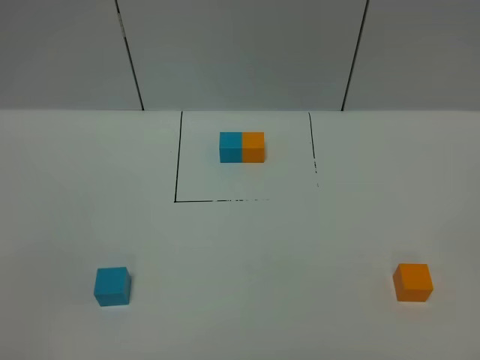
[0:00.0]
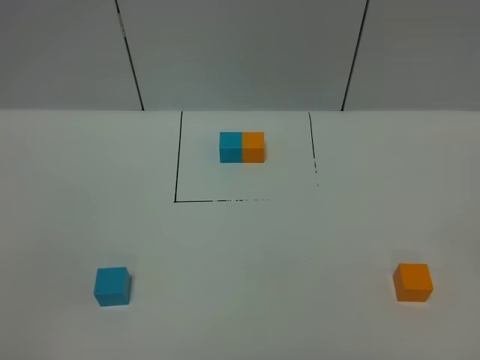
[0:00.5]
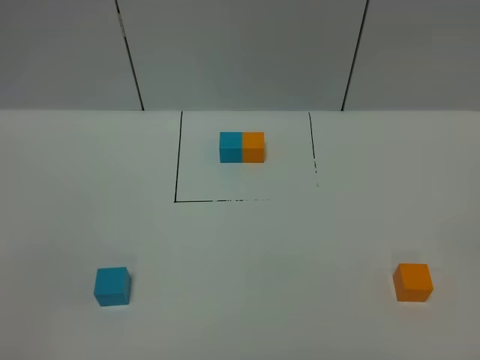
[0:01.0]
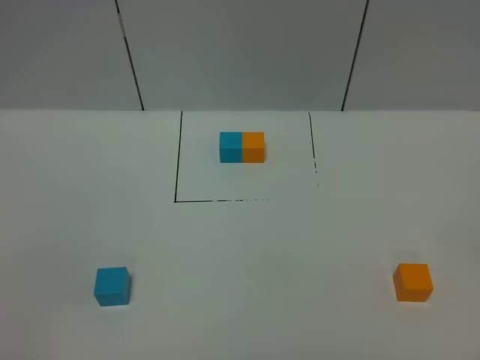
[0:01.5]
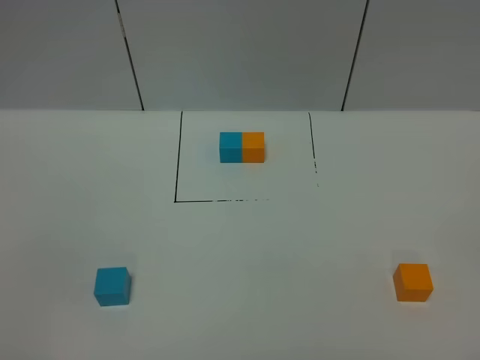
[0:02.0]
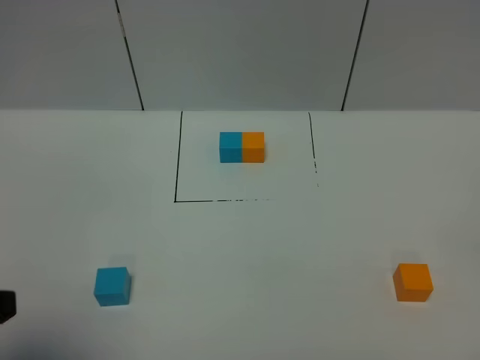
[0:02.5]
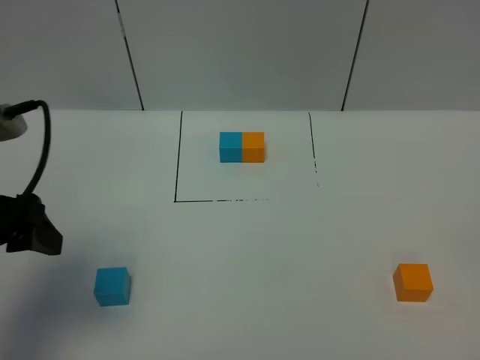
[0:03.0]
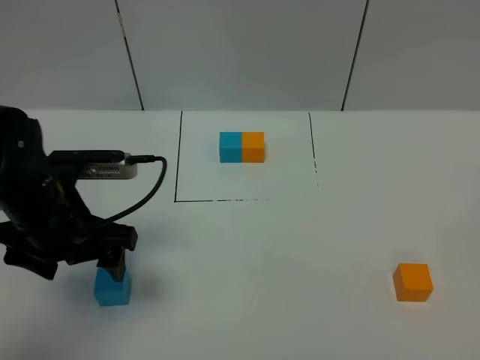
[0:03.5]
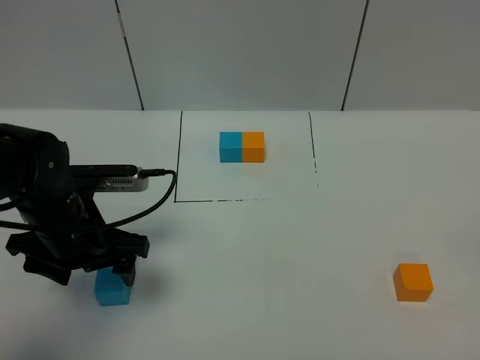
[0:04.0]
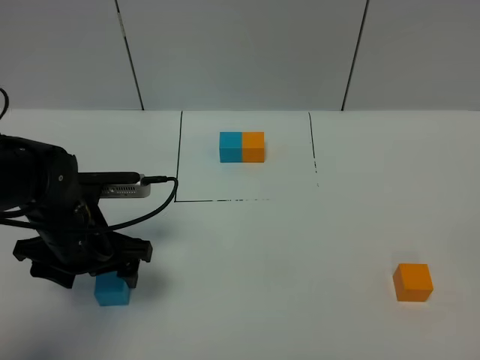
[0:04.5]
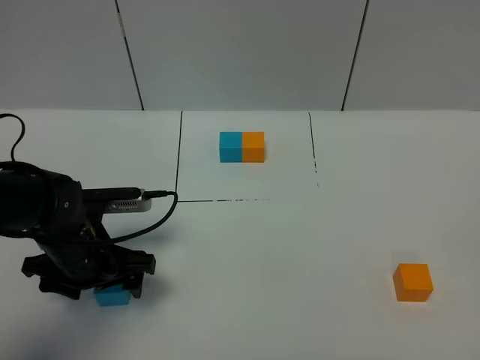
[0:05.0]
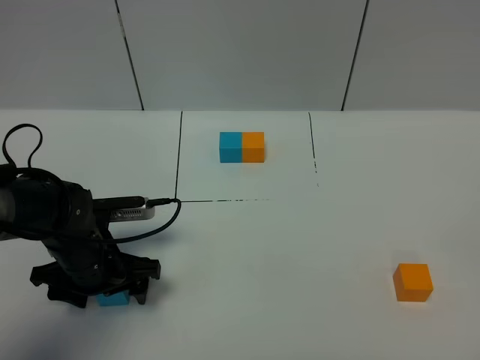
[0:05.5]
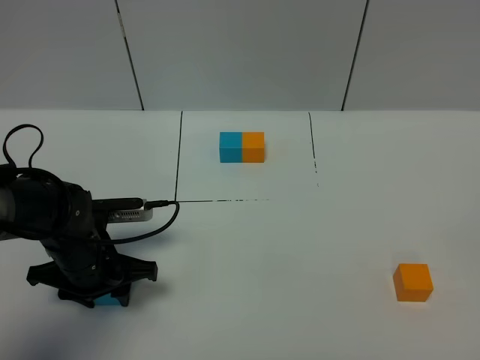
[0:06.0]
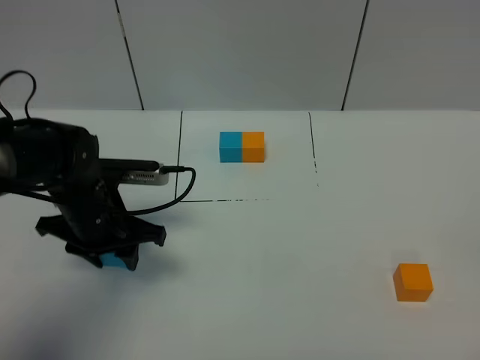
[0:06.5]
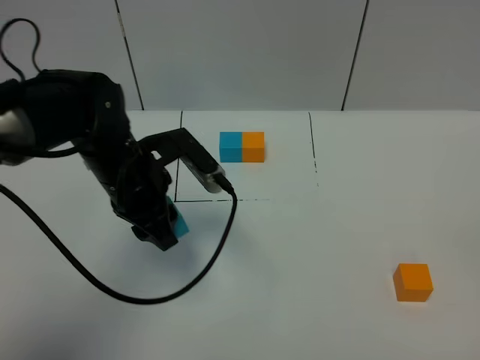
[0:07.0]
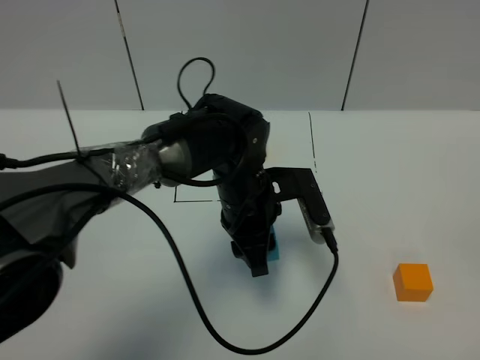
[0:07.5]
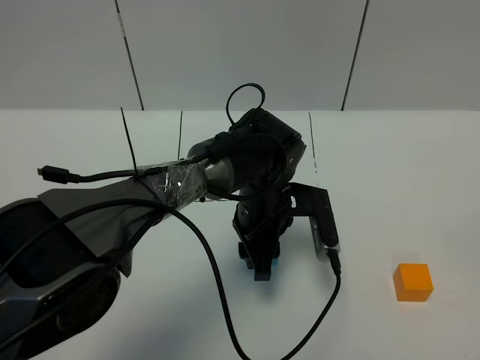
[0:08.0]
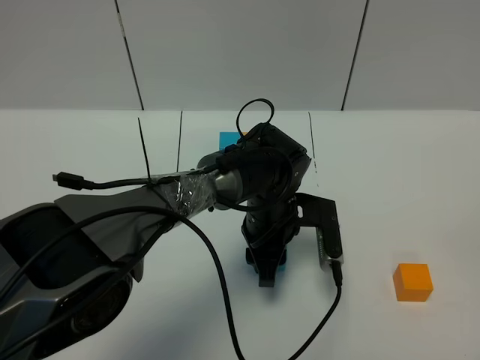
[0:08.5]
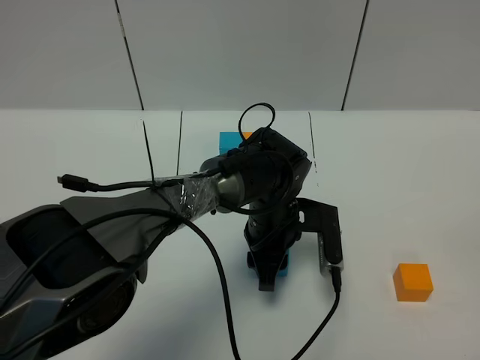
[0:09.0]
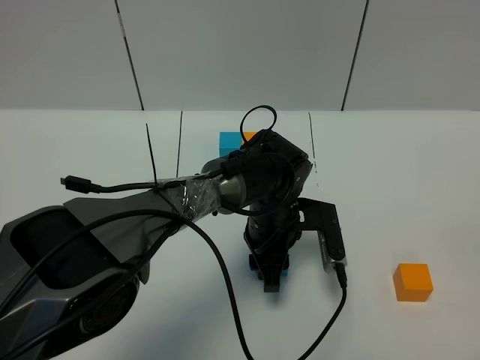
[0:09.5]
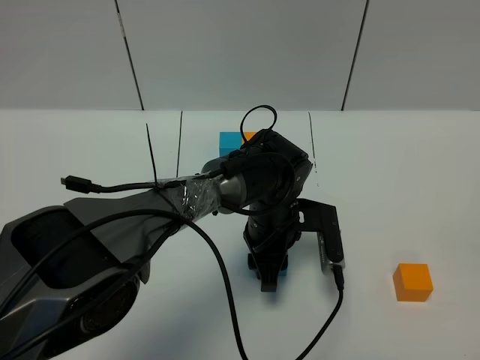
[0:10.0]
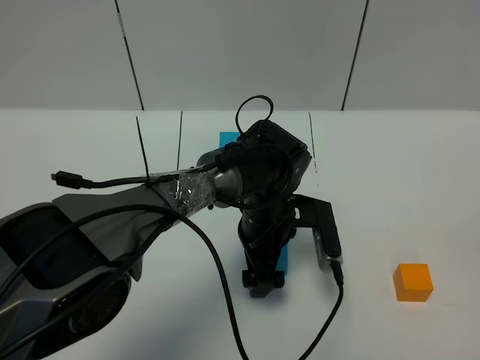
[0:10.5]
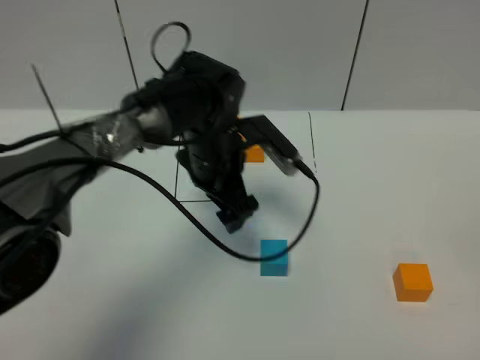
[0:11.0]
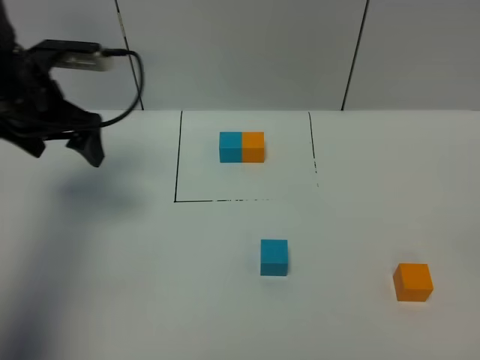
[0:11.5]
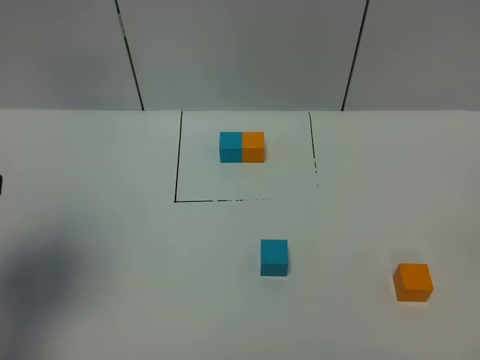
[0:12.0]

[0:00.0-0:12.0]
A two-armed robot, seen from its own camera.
Task of the whole recording: According to the building block template in front, assemble the scattered blocks together.
Step, 0:02.5 to 0:10.5: Put the blue cube in the center of the table.
0:00.0 to 0:02.0: Both grippers stay about where they are.
0:02.0 to 0:04.0: The left gripper is displaced forward by some 30 cm.
0:04.0 to 0:06.0: The left gripper heads downward, covering about 5 cm, and closes.
0:06.0 to 0:08.0: The left gripper moves to the right, some 20 cm.
0:08.0 to 0:10.0: The grippers move only a little.
0:10.0 to 0:12.0: The left gripper goes approximately 40 cm to the left and upward, and opens up.

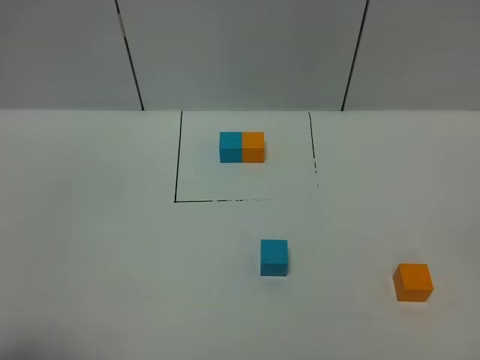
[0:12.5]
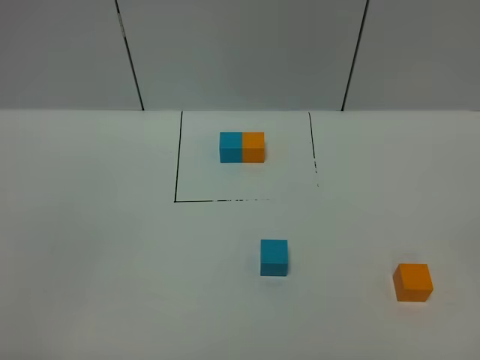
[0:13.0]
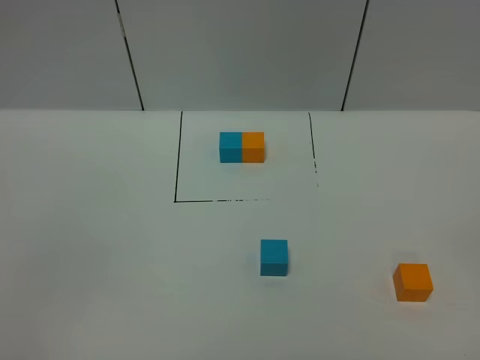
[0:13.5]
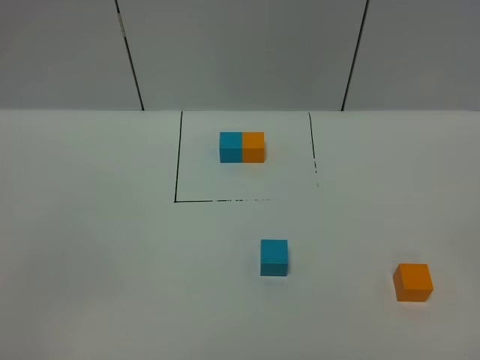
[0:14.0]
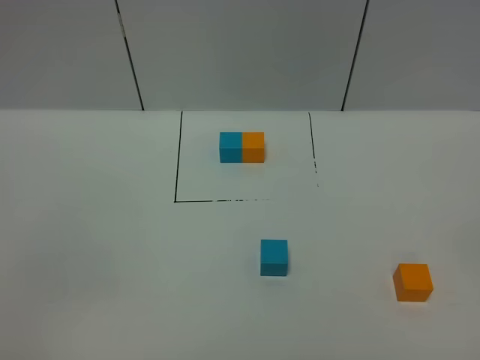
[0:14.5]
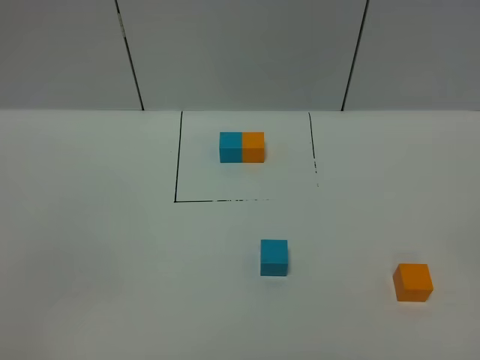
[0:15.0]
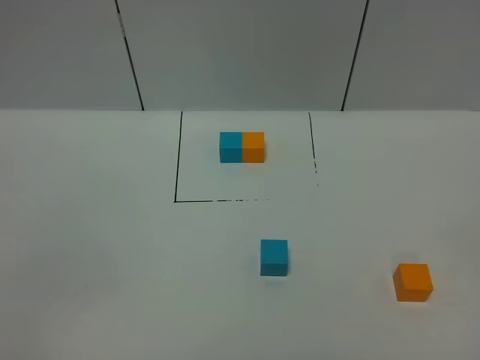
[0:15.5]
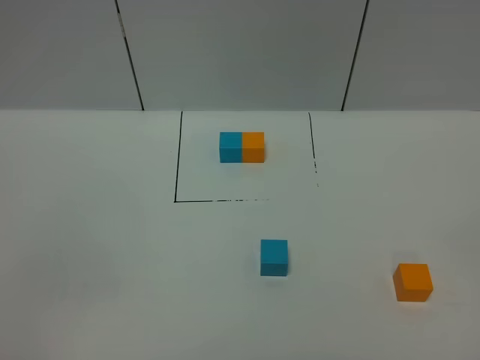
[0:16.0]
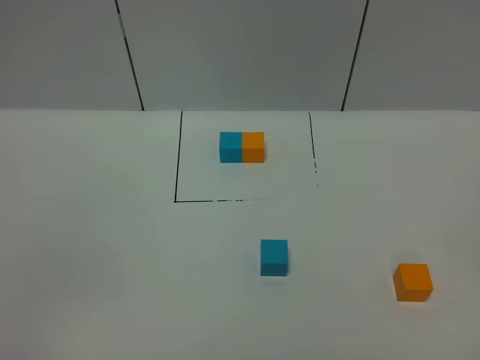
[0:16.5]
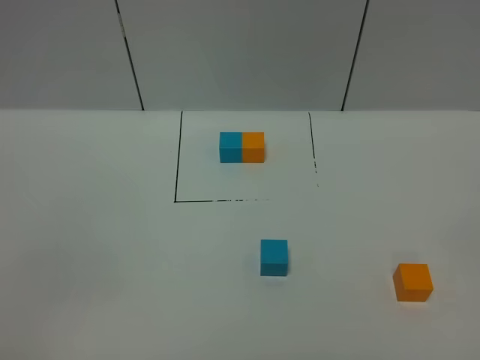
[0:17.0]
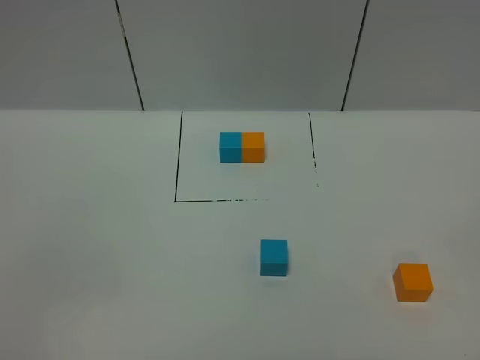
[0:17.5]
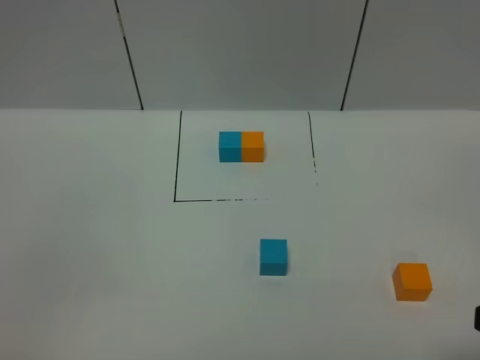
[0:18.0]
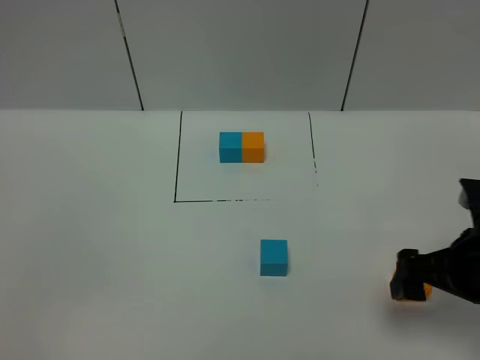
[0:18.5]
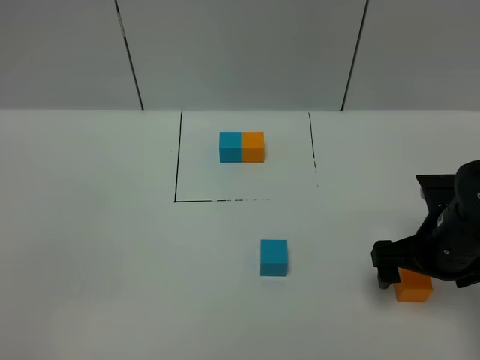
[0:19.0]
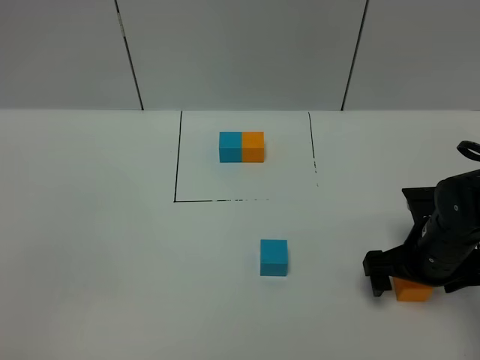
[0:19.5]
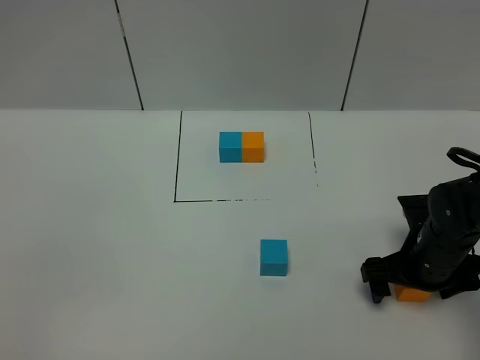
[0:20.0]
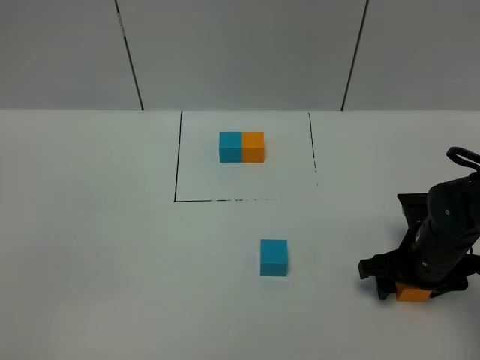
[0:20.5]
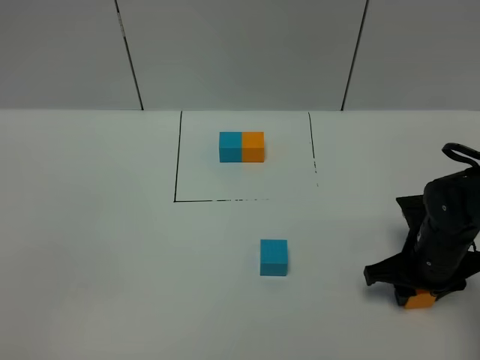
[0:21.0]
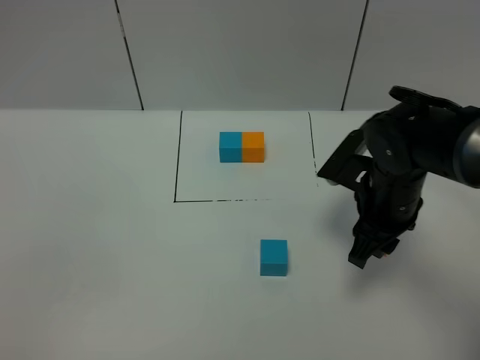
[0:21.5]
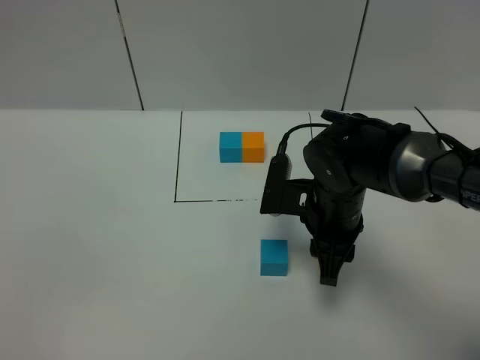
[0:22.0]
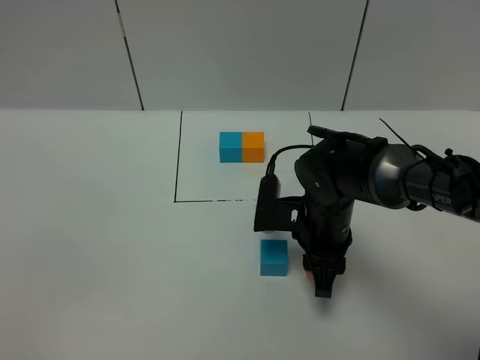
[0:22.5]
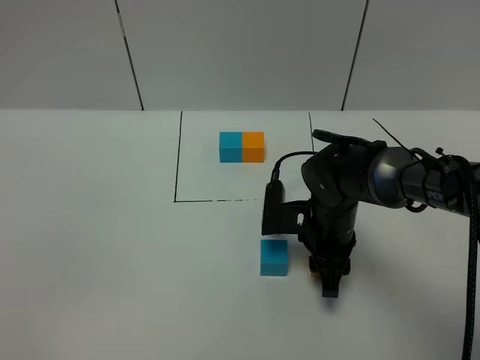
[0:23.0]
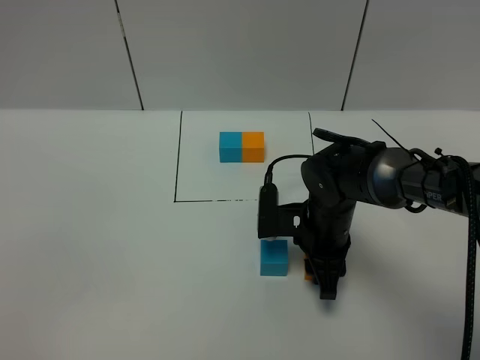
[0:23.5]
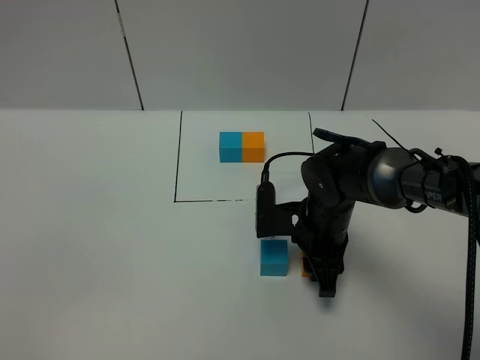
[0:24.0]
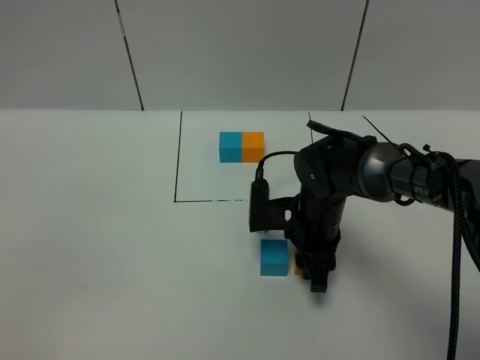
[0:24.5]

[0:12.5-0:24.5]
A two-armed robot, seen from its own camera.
Task of the whole recording: According to the building block template in front, assemble the scattered blocks together.
0:14.5 to 0:16.5: Neither gripper changes place.
0:16.5 to 0:18.5: The right gripper shifts about 25 cm forward.
0:18.5 to 0:20.5: The right gripper goes about 10 cm downward and forward, and closes its fingers.
0:20.5 to 0:22.5: The right gripper is displaced to the left by approximately 15 cm, and closes up.
0:22.5 to 0:24.5: The grippers make only small movements.

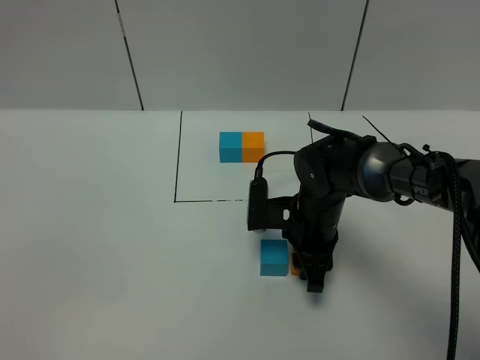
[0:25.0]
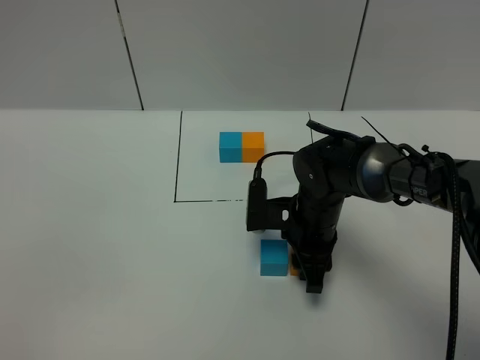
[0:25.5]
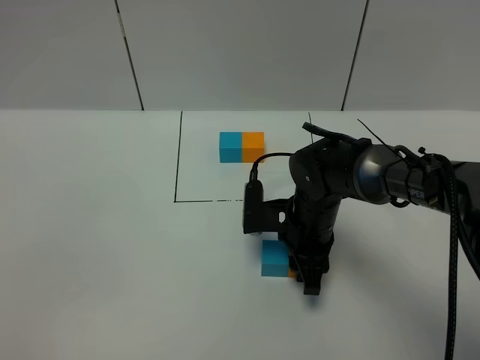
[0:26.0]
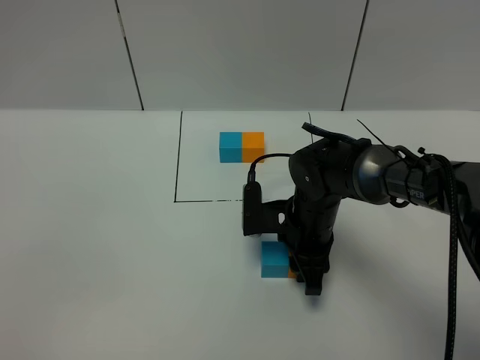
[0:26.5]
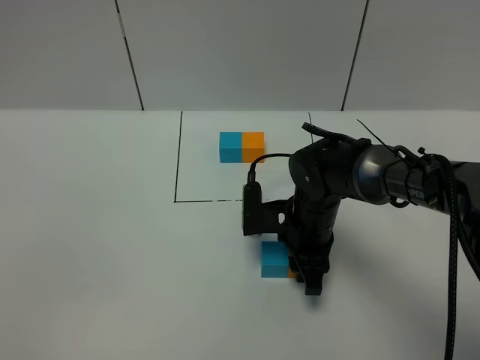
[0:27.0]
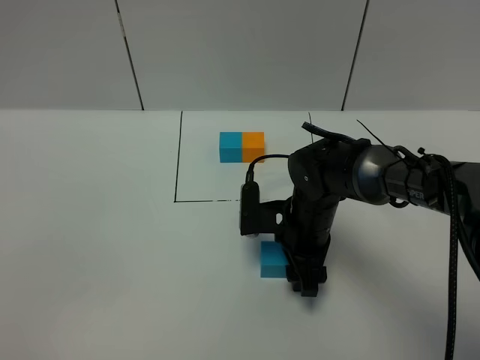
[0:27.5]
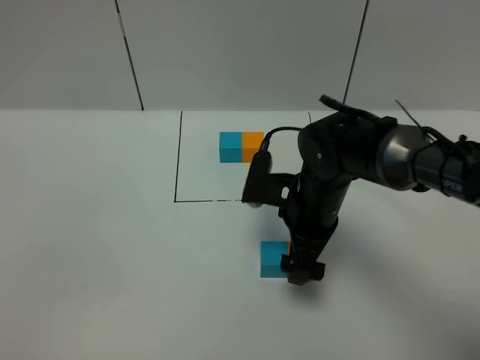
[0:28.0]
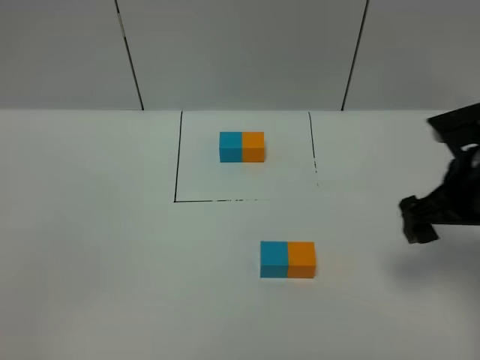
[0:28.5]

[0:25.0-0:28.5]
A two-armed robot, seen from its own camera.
Task of the whole recording: According to the building block template in front, assemble the scattered blocks together.
Step, 0:25.0 to 0:27.5: Put the orange cube on the right of the blue cube.
0:25.0 to 0:27.0: Both grippers stay about where they are.
0:27.0 to 0:28.5: The right gripper shifts about 20 cm to the right and upward, and opens its fingers.
